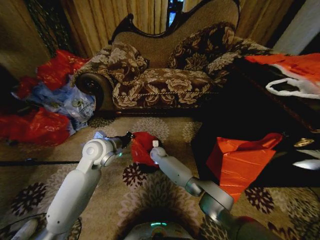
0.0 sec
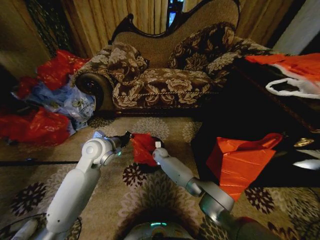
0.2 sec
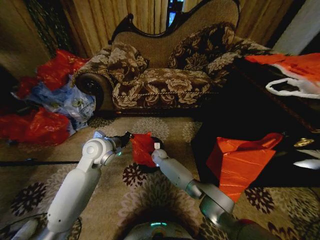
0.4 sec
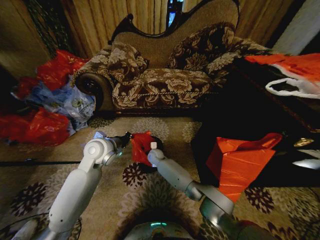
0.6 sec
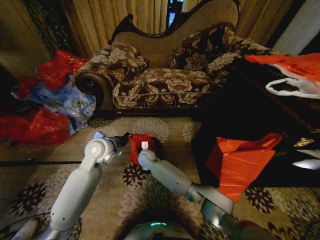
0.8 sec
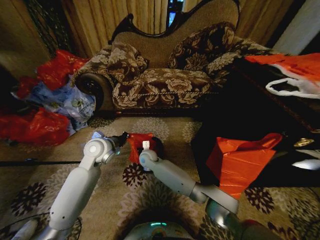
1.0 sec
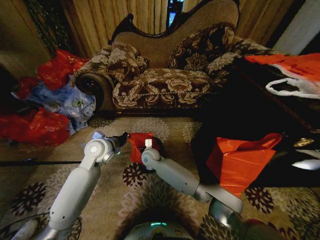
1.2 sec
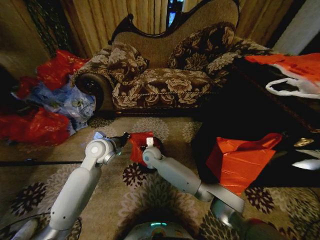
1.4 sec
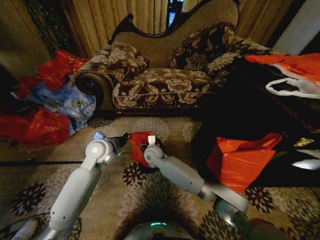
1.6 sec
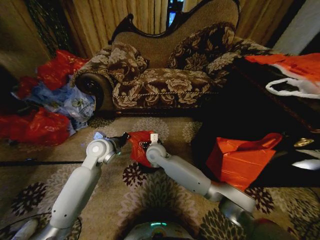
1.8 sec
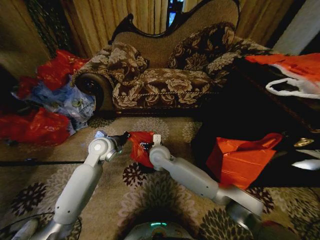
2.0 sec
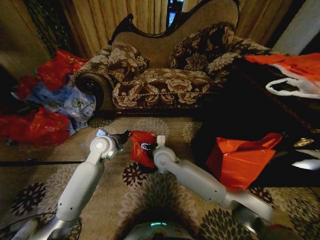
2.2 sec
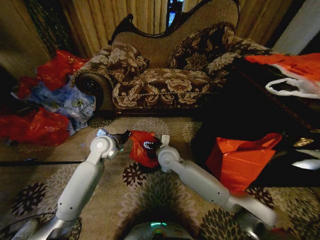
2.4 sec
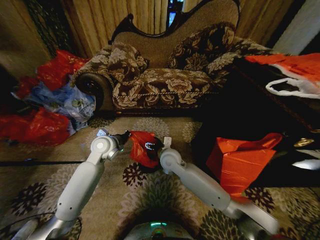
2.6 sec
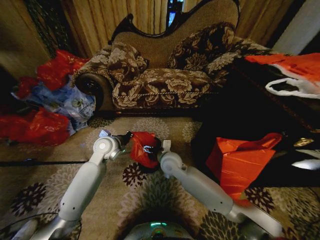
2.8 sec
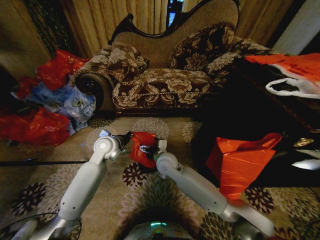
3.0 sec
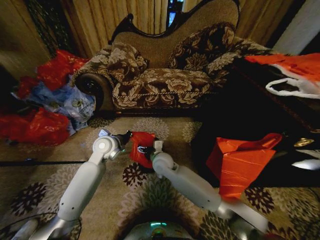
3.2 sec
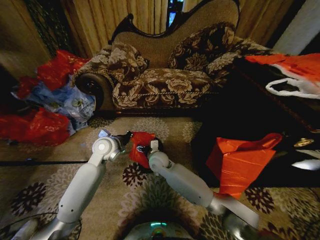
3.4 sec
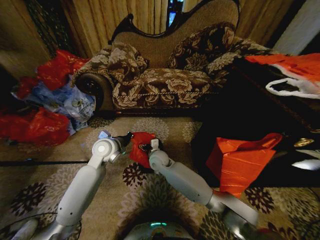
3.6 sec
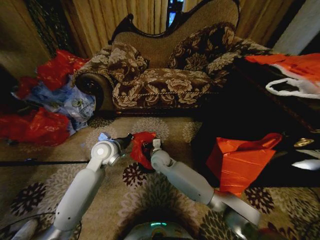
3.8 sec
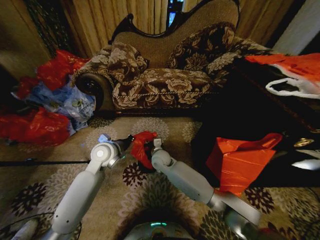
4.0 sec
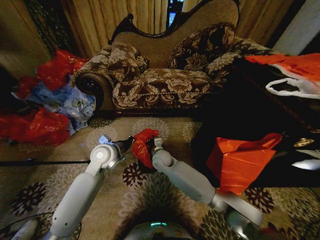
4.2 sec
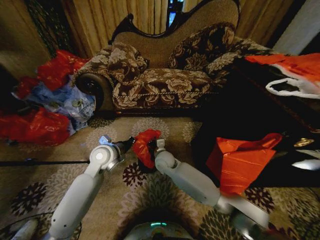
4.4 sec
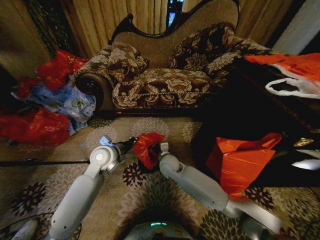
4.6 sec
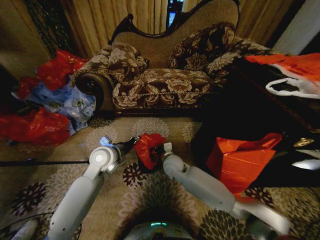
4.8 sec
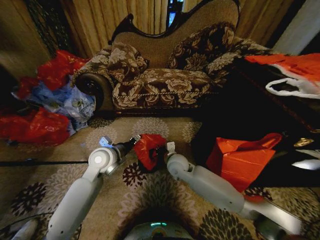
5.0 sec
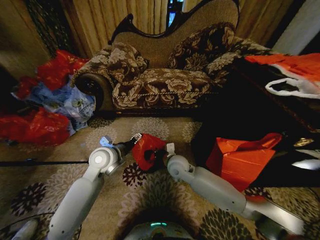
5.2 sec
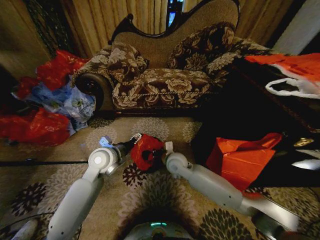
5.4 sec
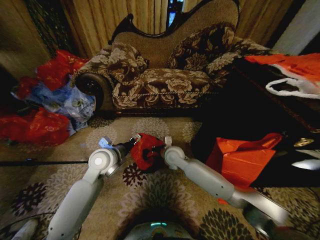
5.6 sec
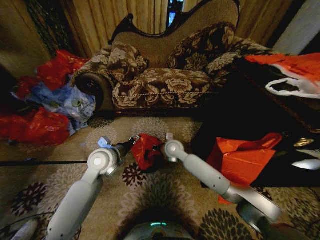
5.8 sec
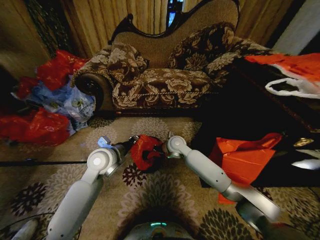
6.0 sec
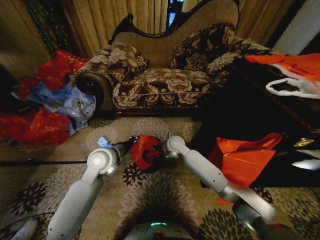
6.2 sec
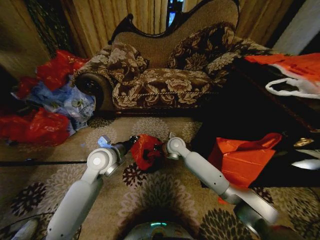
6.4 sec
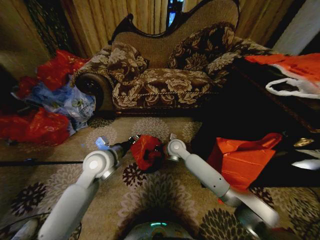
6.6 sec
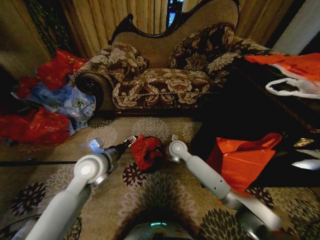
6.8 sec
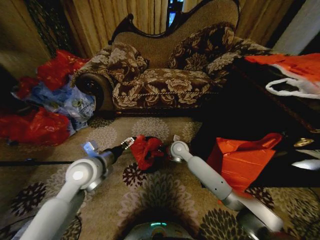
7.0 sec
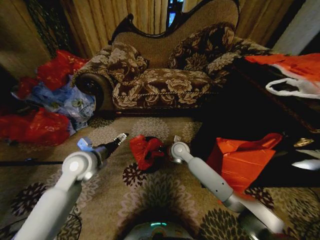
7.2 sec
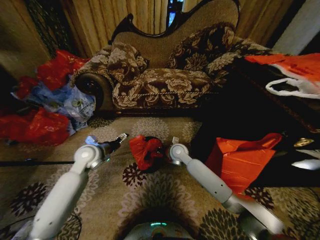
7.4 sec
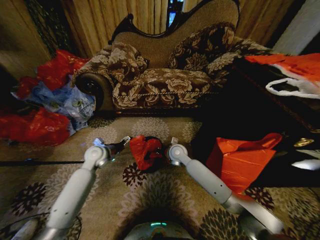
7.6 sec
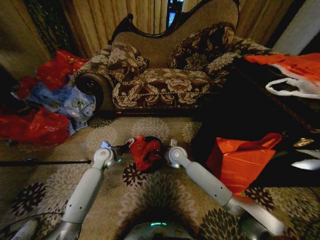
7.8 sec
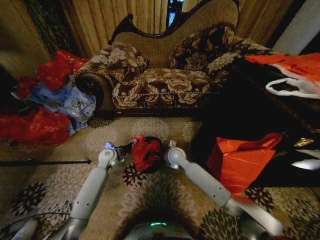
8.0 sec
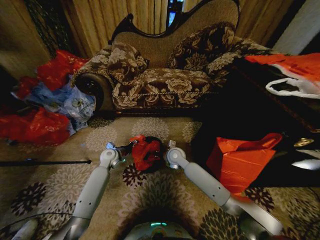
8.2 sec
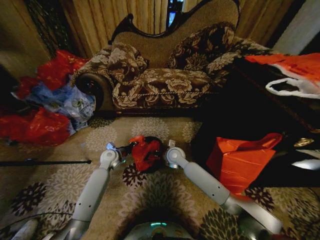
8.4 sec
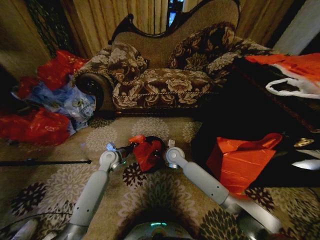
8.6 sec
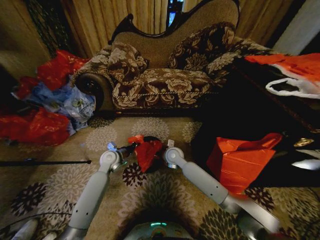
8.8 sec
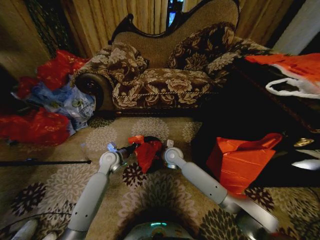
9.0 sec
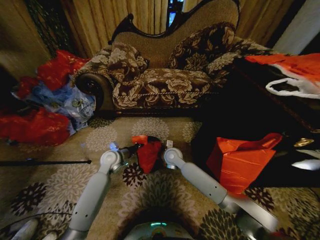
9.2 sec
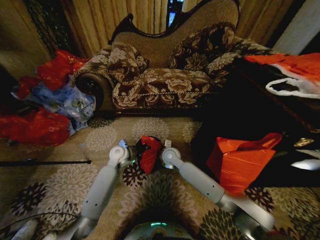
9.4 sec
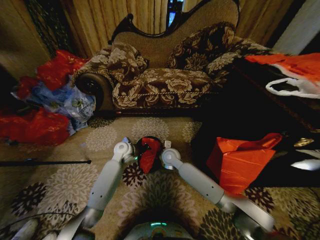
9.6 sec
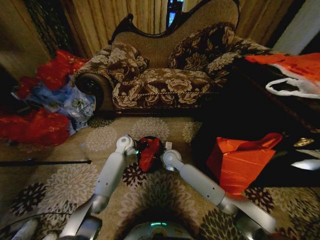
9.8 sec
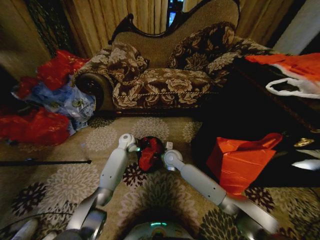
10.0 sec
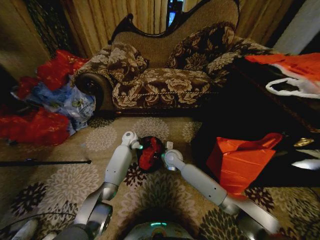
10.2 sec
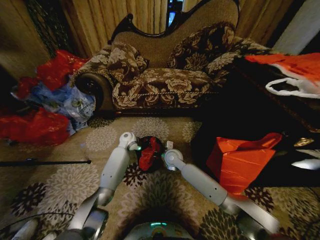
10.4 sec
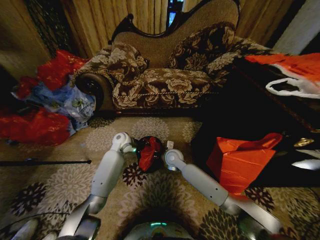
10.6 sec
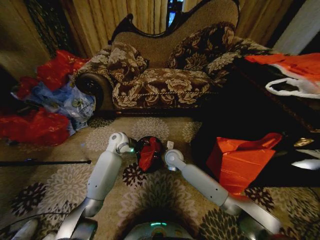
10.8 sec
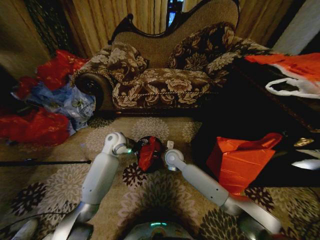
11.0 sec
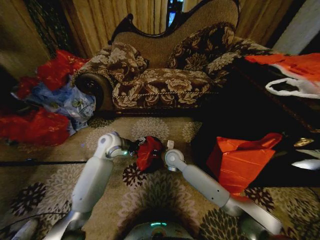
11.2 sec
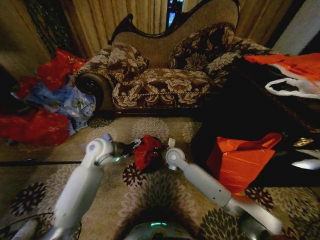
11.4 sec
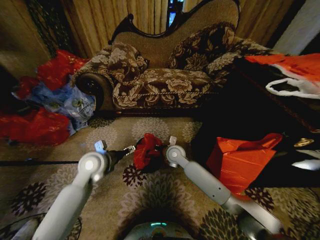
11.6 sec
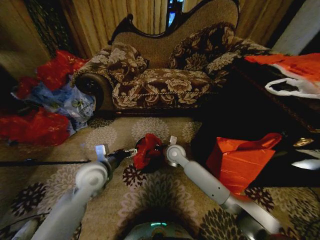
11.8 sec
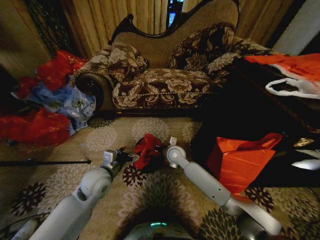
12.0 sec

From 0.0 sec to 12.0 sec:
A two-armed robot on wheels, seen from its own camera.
Task of the whole recording: Place a garbage bag over the trash bin.
From 0.0 sec to 1.6 sec: The right gripper goes about 15 cm upward and backward, and opens its fingers.
From 1.6 sec to 3.0 sec: The right gripper shifts some 10 cm to the right and backward.
From 3.0 sec to 4.4 sec: The right gripper changes place by approximately 5 cm, and closes up.
From 4.4 sec to 6.0 sec: The left gripper opens up; the right gripper goes about 10 cm upward, to the right and forward.
From 6.0 sec to 7.6 sec: The left gripper heads downward, to the left and forward, covering roughly 15 cm, and opens its fingers.
From 7.6 sec to 9.0 sec: The left gripper shifts by about 5 cm, and closes up.
From 9.0 sec to 10.4 sec: The left gripper travels forward and to the right by about 15 cm.
From 10.4 sec to 12.0 sec: The left gripper moves backward, approximately 25 cm, and opens its fingers.

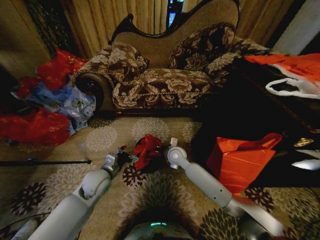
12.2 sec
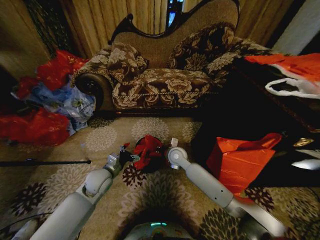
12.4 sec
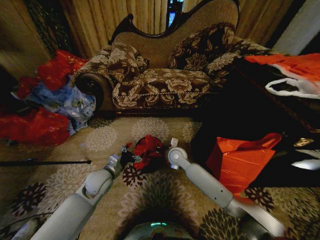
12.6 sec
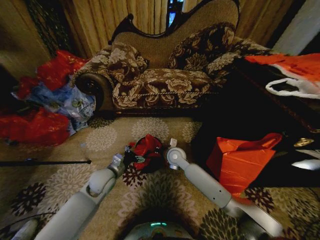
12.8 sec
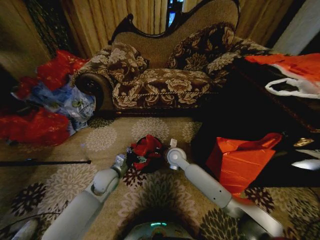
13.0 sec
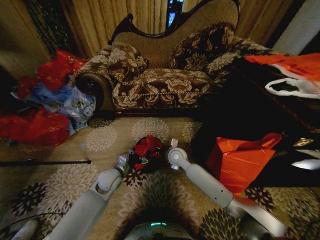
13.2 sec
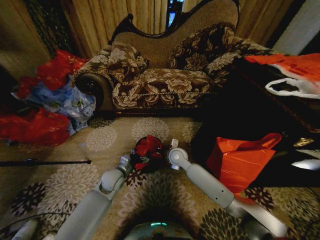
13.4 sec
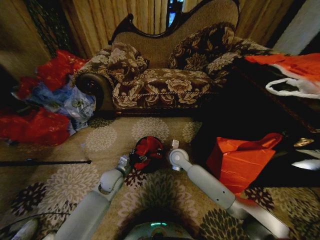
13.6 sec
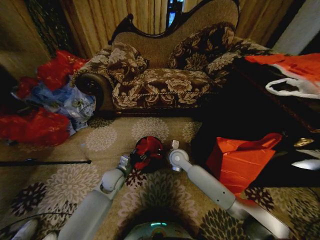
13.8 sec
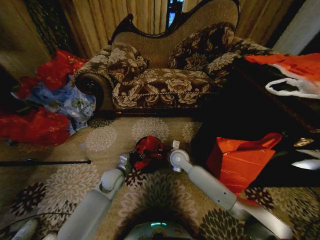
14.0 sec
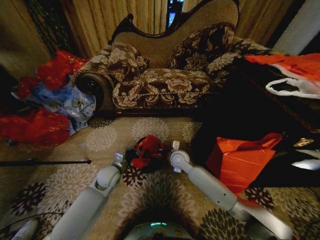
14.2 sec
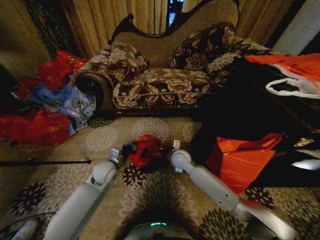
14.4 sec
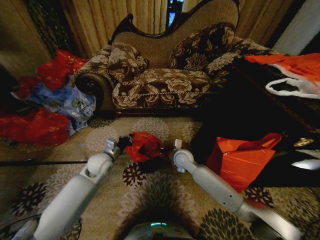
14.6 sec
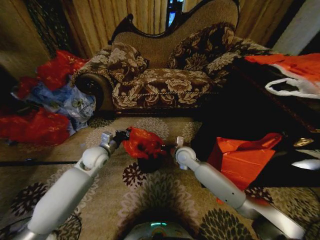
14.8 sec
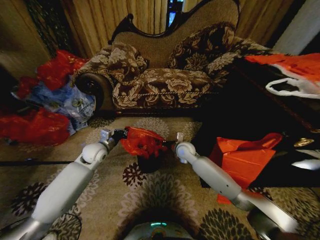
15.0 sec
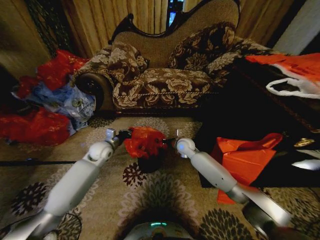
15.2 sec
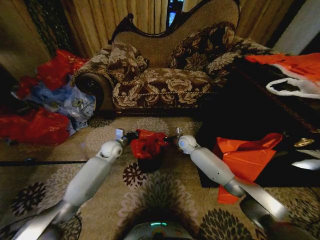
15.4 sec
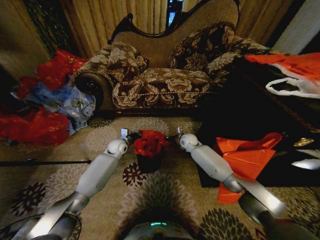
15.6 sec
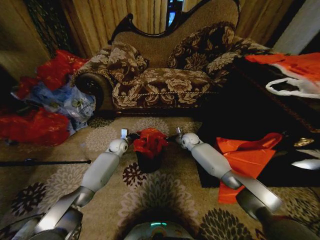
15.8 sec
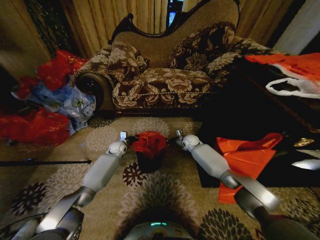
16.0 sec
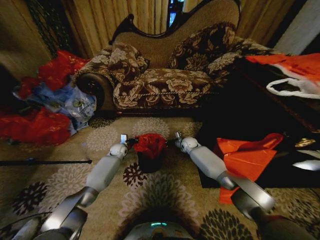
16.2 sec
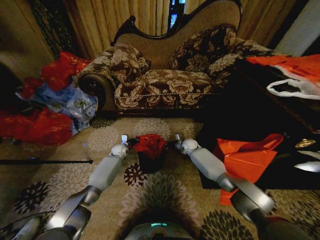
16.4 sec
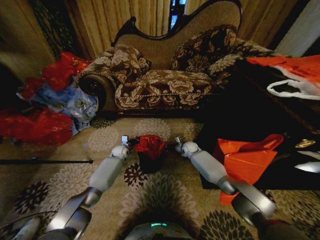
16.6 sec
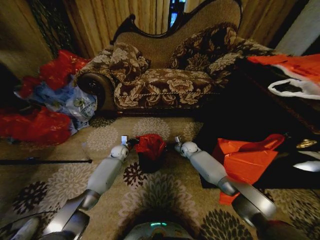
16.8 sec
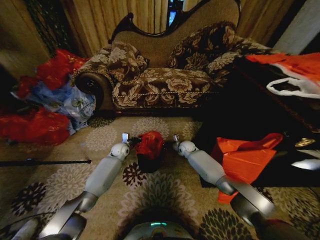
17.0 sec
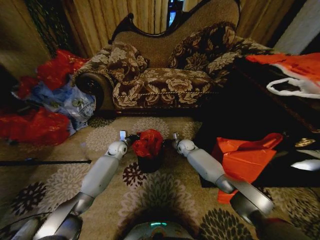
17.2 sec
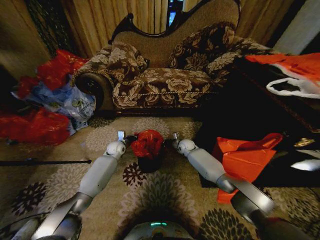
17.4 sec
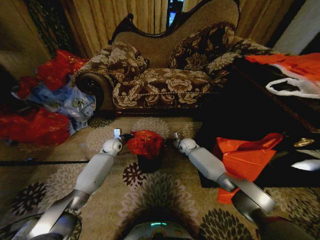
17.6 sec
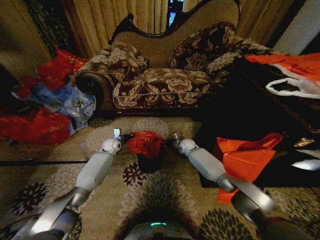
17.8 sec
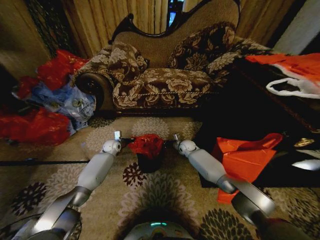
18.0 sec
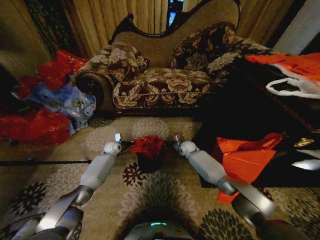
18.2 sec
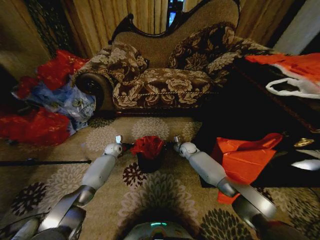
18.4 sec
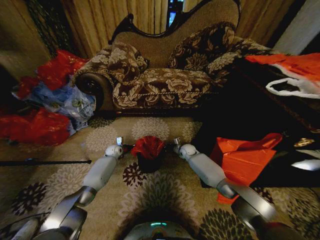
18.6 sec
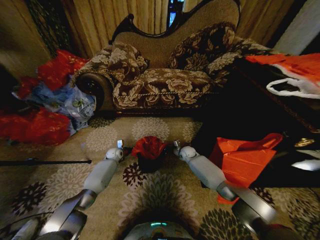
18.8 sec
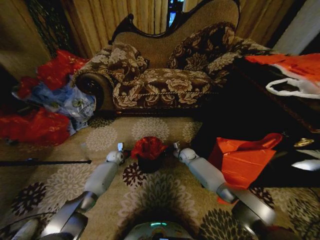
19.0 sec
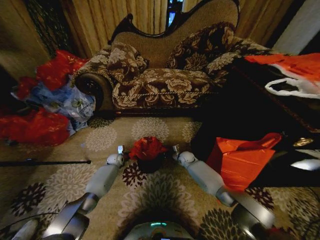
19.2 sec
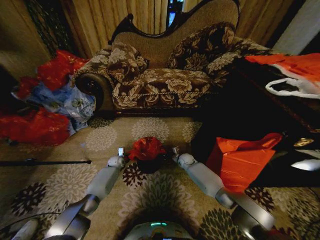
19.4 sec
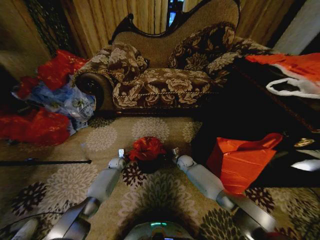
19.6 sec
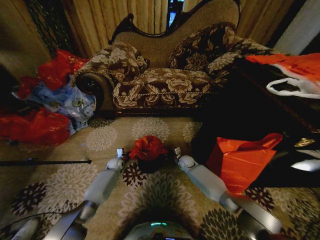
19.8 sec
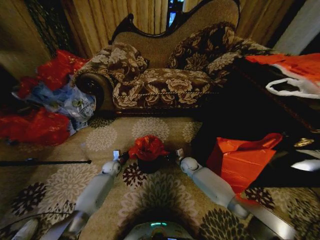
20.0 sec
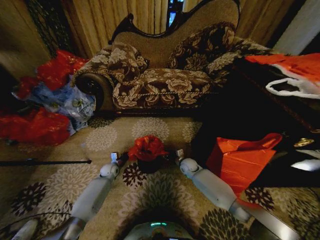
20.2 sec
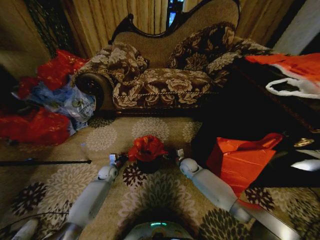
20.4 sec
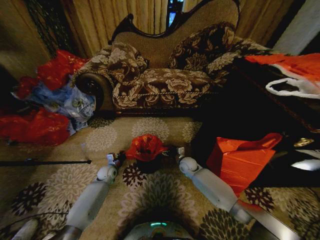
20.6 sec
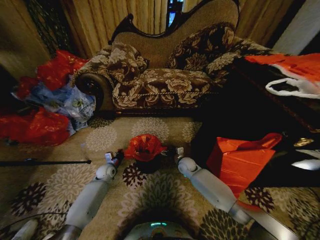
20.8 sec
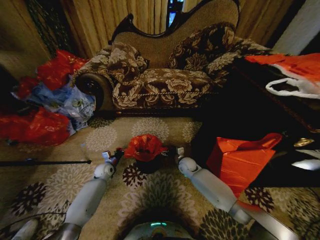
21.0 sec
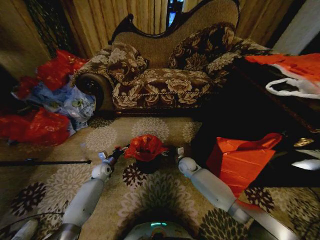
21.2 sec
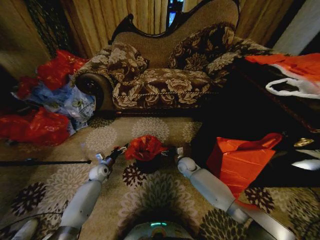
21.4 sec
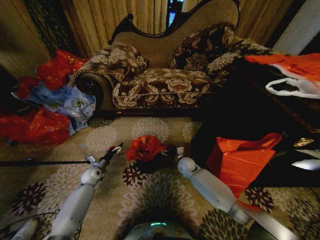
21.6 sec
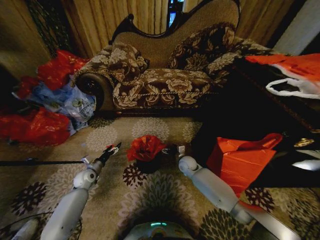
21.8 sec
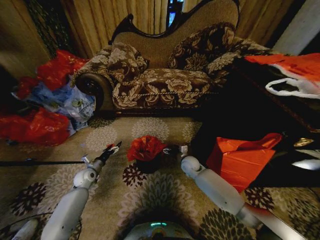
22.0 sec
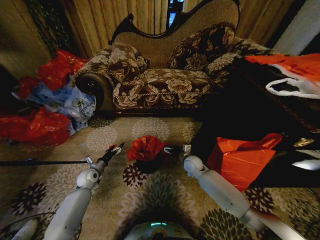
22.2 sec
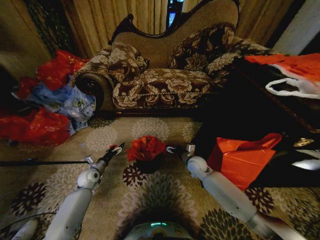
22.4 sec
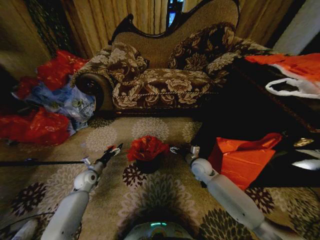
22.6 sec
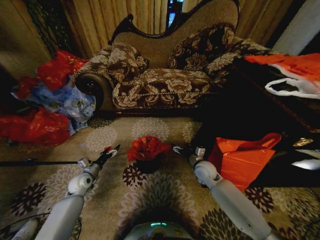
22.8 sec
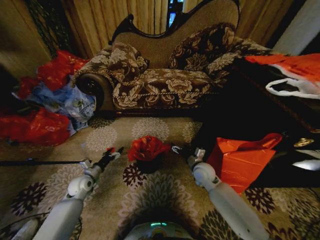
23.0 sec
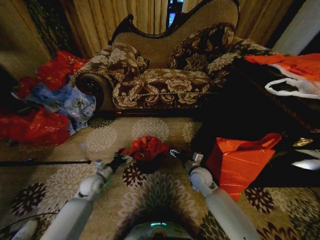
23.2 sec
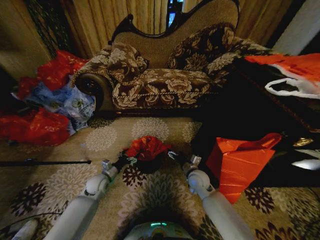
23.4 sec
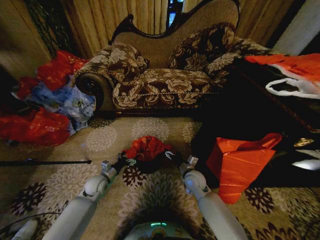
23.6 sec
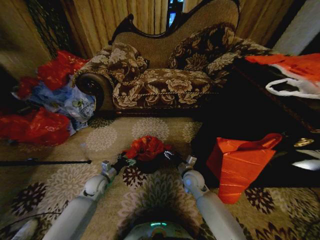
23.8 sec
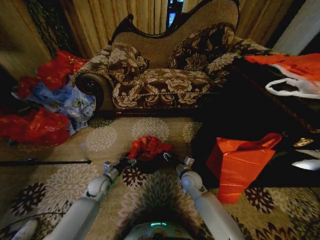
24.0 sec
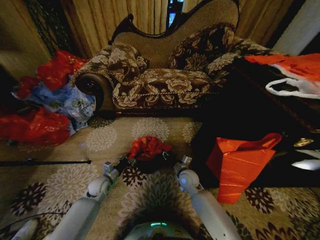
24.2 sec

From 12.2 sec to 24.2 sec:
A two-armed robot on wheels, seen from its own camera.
Task of the whole recording: Place a garbage bag over the trash bin.
From 12.2 sec to 13.8 sec: The left gripper travels downward by some 5 cm, and closes.
From 13.8 sec to 15.2 sec: The right gripper heads forward, covering about 10 cm. The left gripper shifts about 15 cm forward, upward and to the left, and closes.
From 15.2 sec to 16.6 sec: The left gripper shifts roughly 15 cm downward and forward. Meanwhile the right gripper goes roughly 15 cm downward, forward and to the right.
From 16.6 sec to 18.2 sec: The left gripper ends up some 5 cm from where it was.
From 18.2 sec to 19.8 sec: The grippers both shift downward and backward by approximately 10 cm.
From 19.8 sec to 21.2 sec: The right gripper opens. The left gripper is displaced backward and to the left by some 10 cm, and opens up.
From 21.2 sec to 22.6 sec: The left gripper moves backward, approximately 5 cm. The right gripper moves upward, about 5 cm.
From 22.6 sec to 24.2 sec: The left gripper travels to the right by approximately 10 cm, and closes its fingers. The right gripper is displaced to the left by about 5 cm, and closes.
